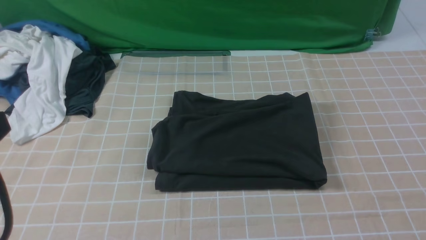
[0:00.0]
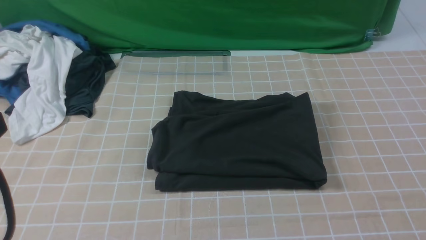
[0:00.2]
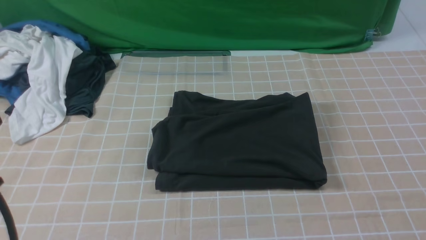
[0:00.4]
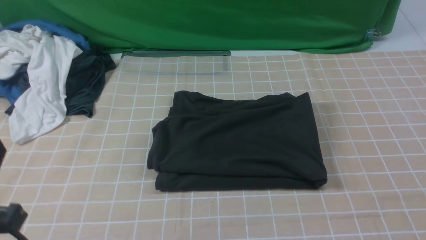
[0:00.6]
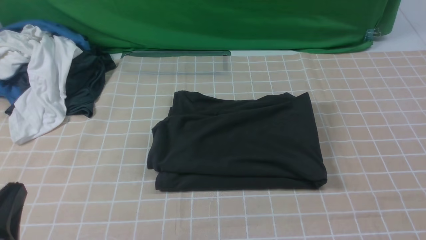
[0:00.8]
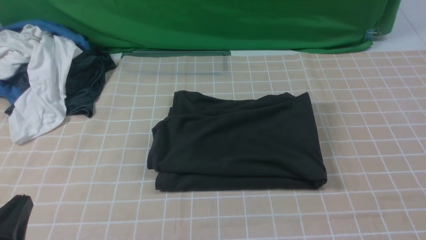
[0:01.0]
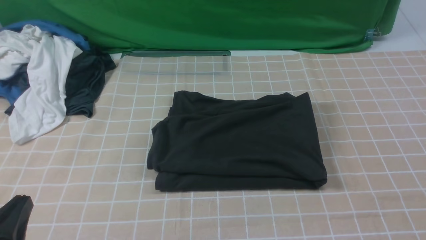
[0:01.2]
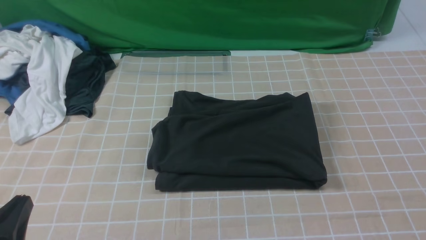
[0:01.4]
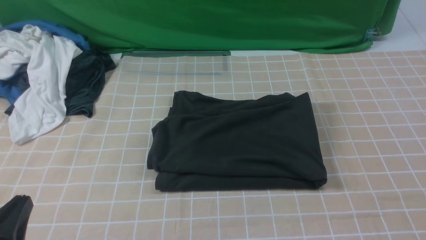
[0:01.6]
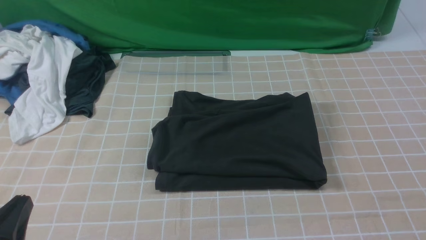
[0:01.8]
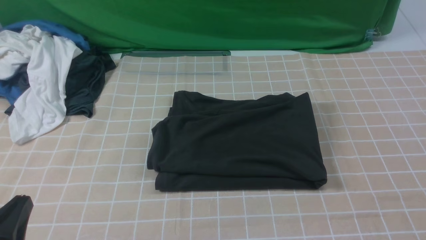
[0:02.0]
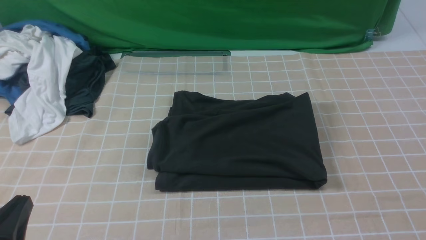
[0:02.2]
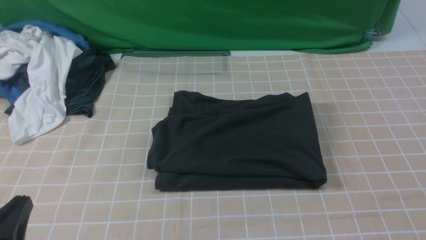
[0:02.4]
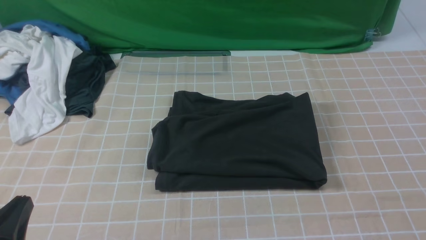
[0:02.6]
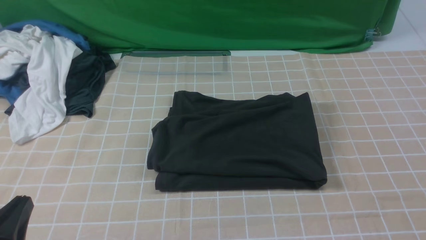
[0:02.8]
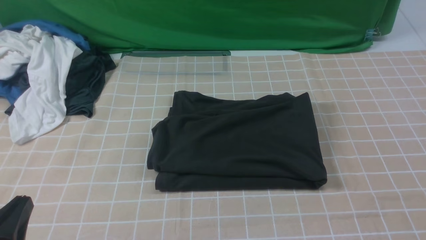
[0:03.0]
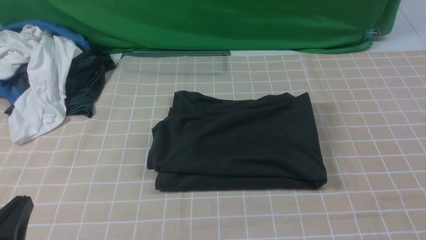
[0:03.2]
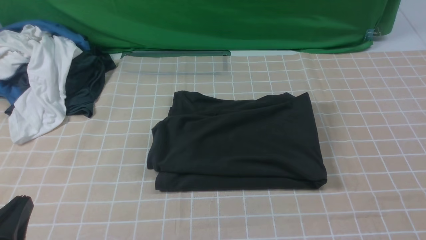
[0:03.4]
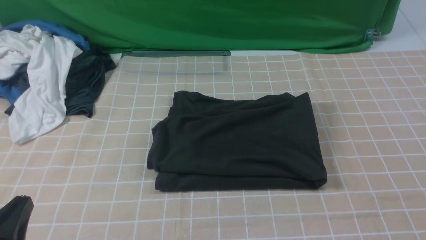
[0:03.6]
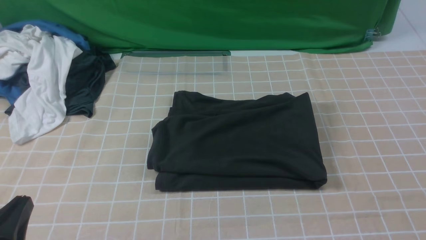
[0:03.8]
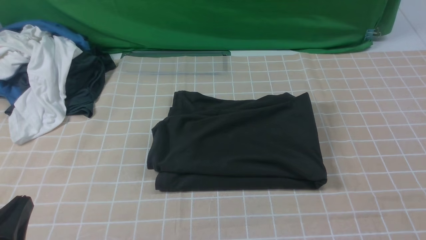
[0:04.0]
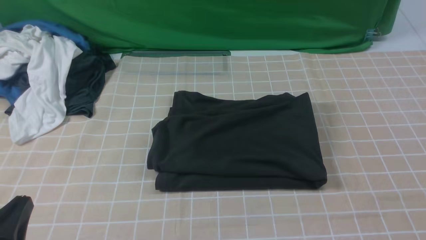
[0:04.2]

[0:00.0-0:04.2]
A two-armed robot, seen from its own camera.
0:00.0 to 0:01.4: The left gripper moves downward, roughly 15 cm.
0:02.8 to 0:04.2: Neither gripper changes place.

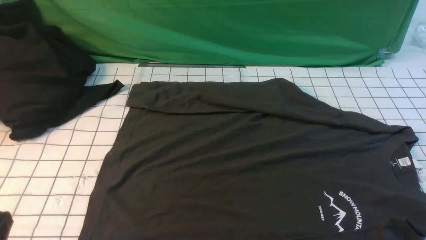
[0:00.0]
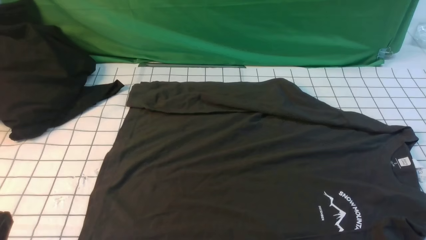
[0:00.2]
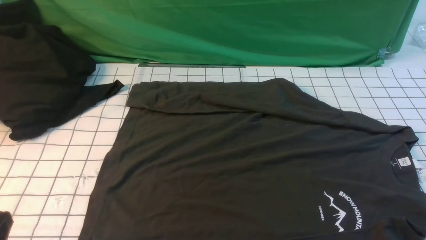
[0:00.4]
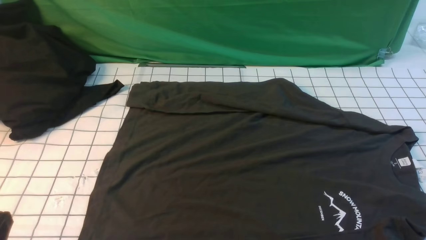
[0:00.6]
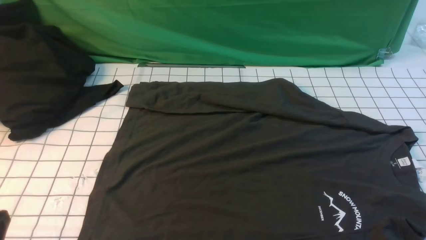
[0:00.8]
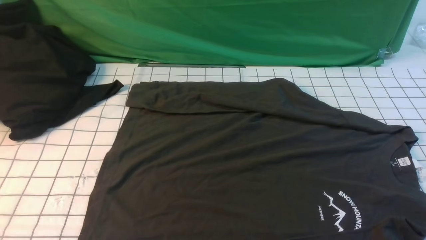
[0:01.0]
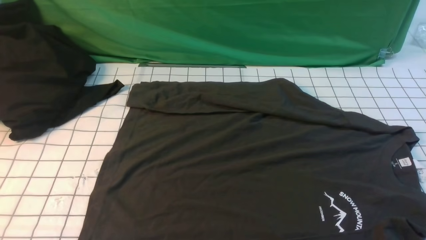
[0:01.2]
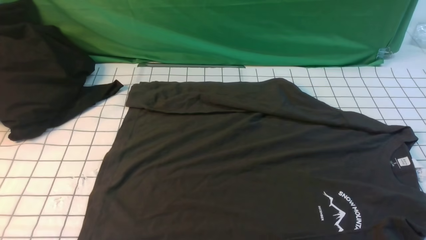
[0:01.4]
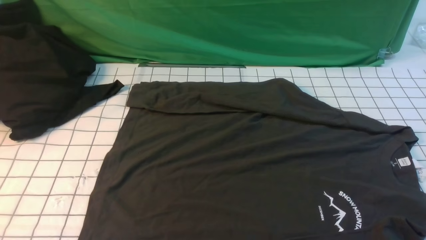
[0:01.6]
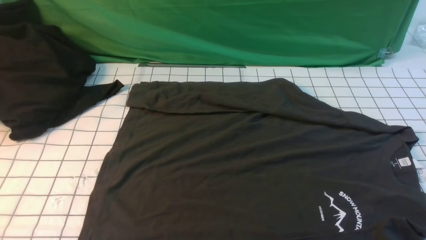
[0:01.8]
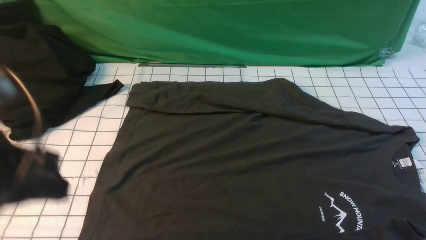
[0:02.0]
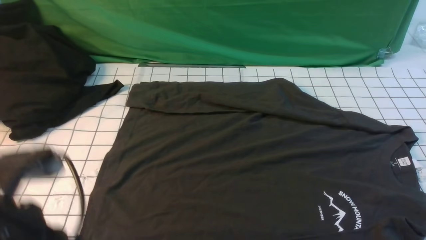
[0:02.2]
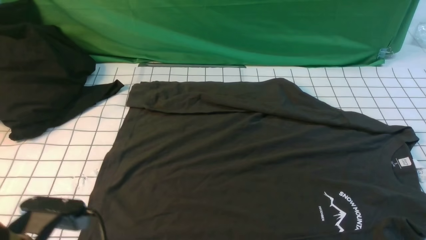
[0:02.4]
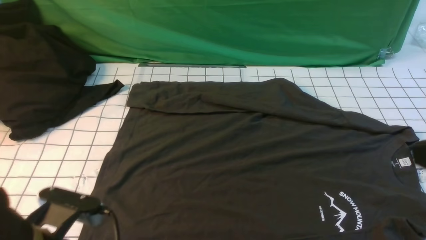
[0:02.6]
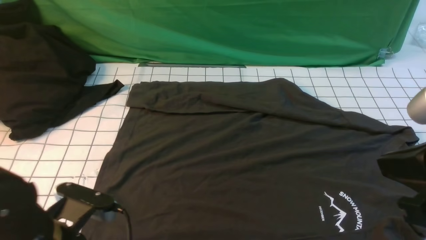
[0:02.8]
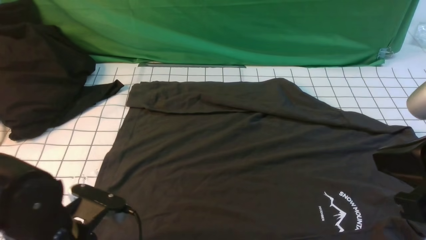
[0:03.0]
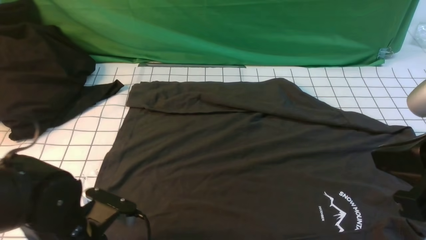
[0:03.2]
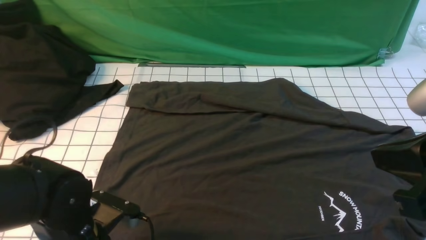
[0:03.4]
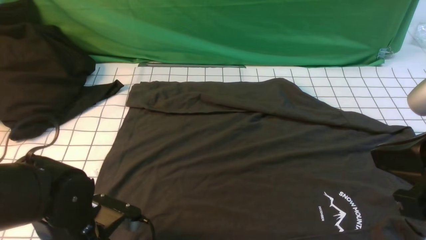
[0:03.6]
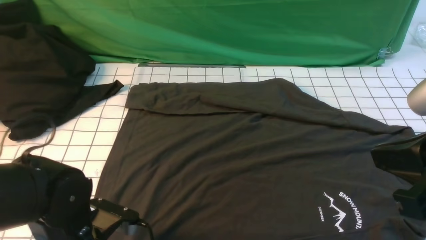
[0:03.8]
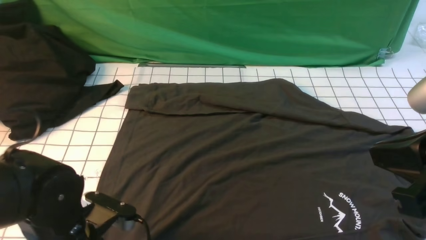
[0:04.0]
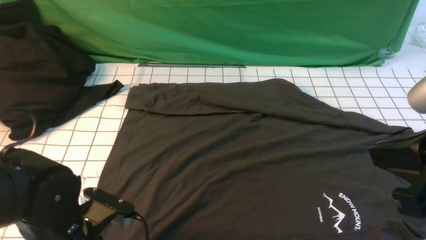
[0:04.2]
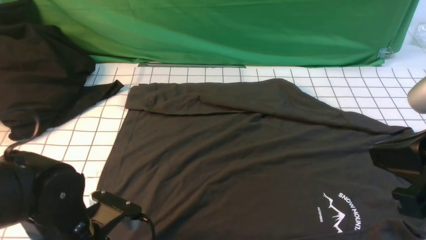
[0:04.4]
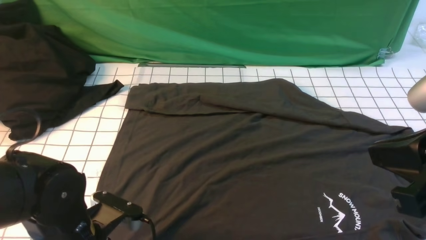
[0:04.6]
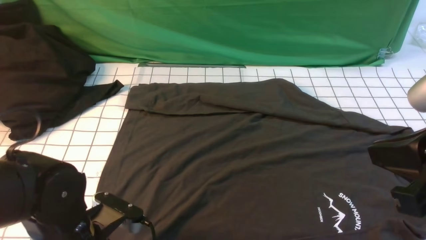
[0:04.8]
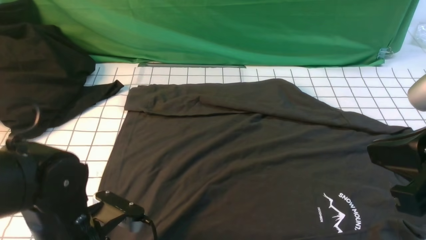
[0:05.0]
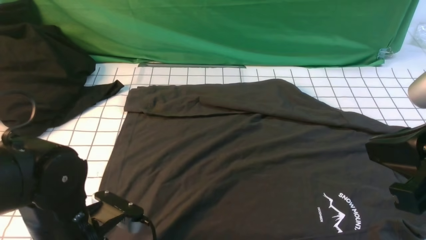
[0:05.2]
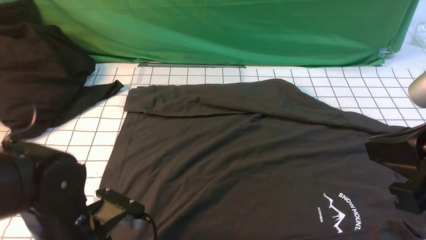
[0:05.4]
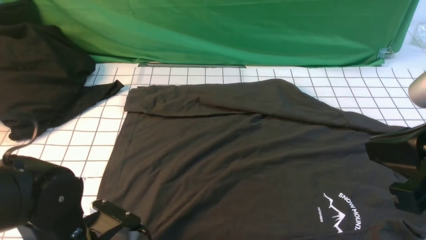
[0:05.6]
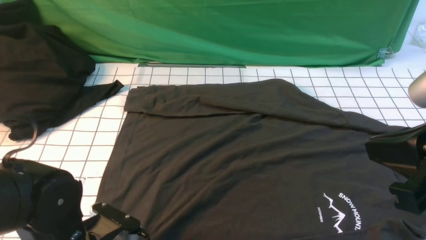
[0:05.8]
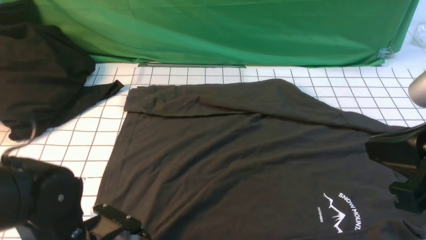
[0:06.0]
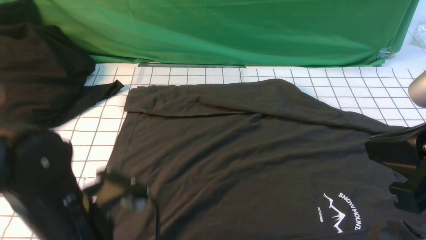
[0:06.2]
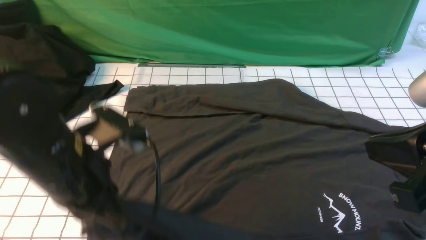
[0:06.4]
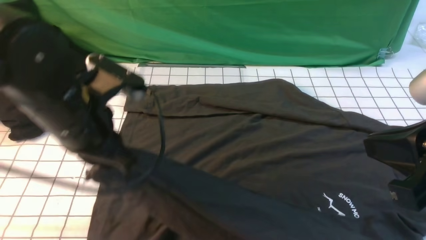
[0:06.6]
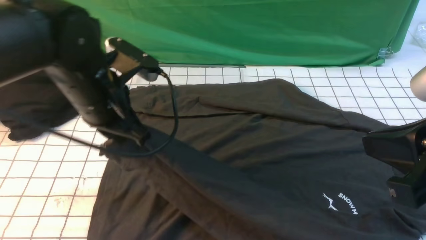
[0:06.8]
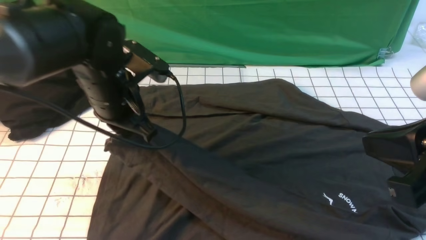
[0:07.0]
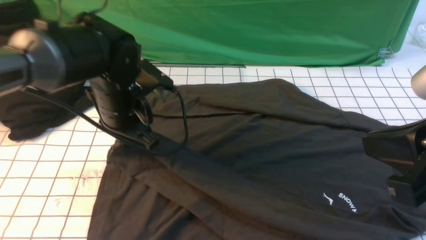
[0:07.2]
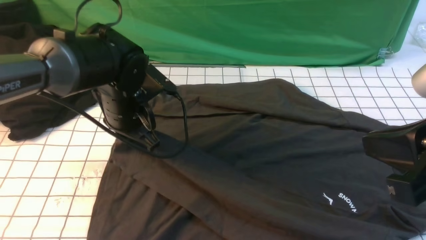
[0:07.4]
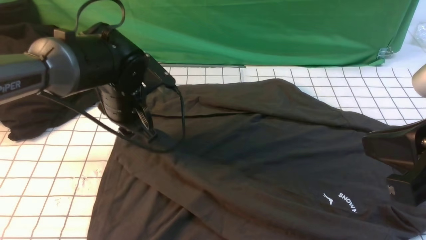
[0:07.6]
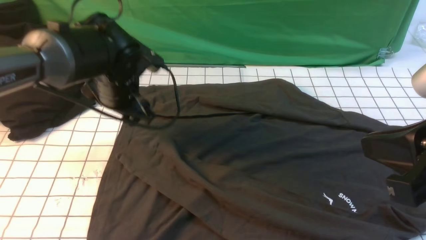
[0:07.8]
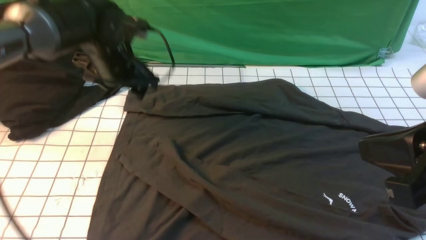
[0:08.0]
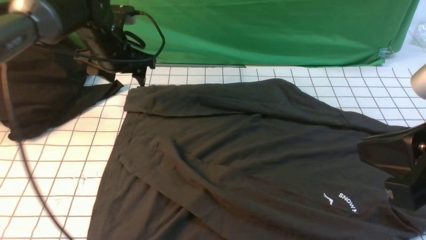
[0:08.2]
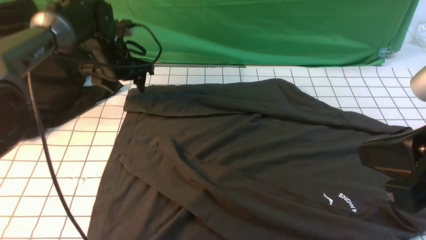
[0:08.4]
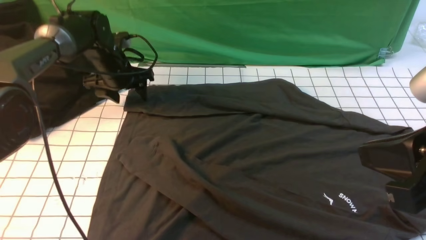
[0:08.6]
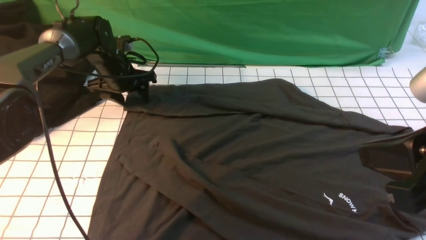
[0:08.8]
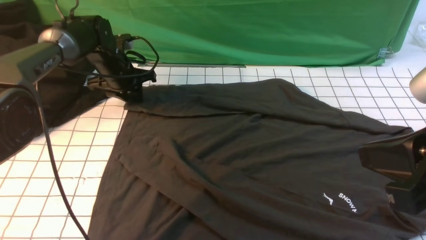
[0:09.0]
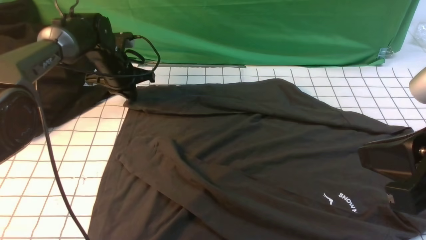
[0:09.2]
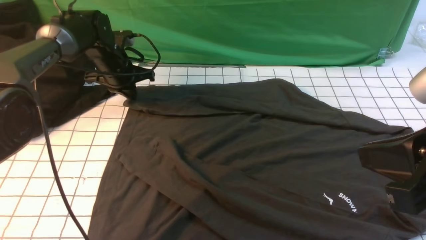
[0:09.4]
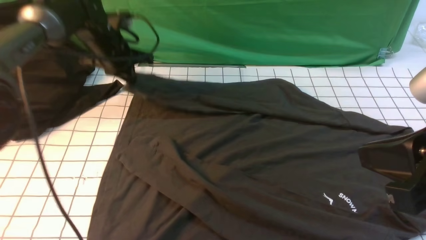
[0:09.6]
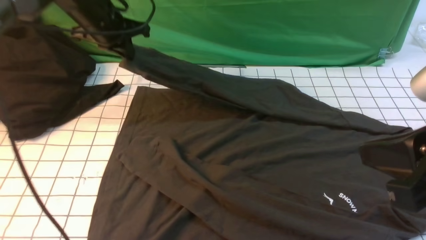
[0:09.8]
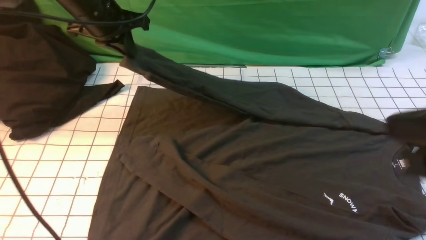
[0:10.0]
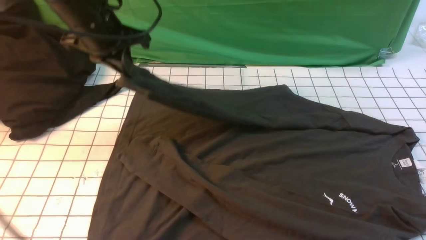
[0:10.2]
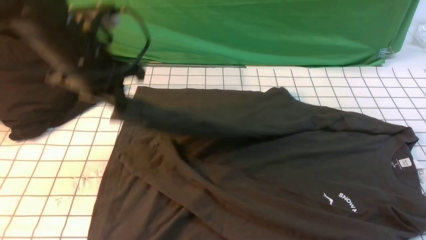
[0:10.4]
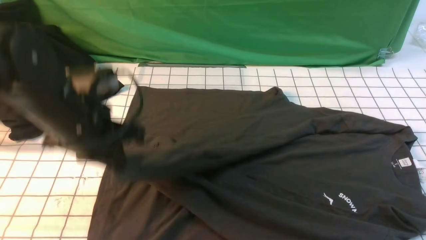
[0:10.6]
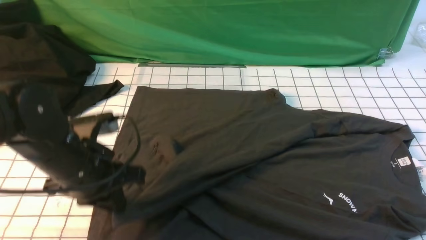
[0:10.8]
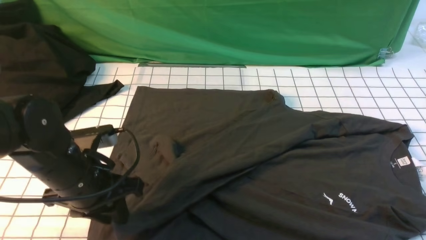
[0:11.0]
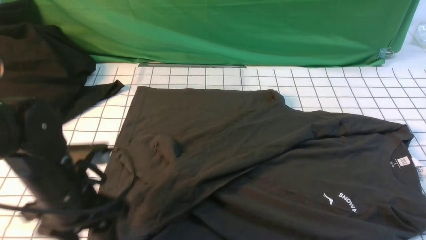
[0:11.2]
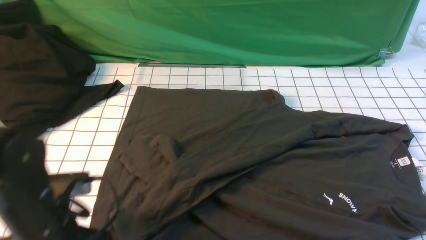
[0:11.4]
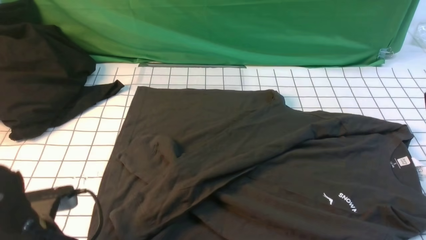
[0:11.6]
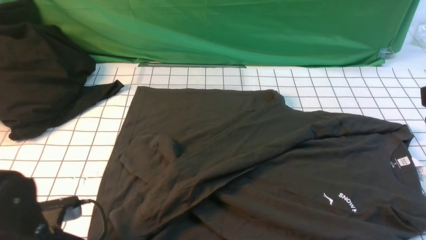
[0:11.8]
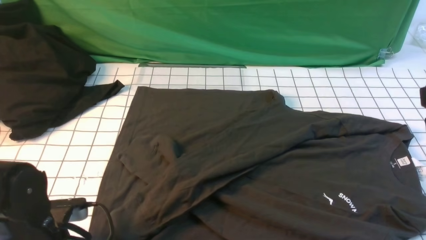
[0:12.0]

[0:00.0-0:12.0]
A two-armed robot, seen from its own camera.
Step, 0:00.0 to 0:05.6: use the left arm to clamp the cuff closest to it.
Step, 0:06.0 to 0:07.6: use the left arm to drag and place the cuff at the centered position on the left edge of the fabric.
Step, 0:07.8 to 0:09.0: use the left arm to clamp the cuff farthest from it.
Step, 0:09.2 to 0:11.0: use the left arm to drag and drop the cuff onto the cuff closest to the left arm.
0:01.6 to 0:03.0: The right gripper is displaced upward, to the left and forward by roughly 20 cm, and closes up; the left gripper heads downward, forward and to the right, covering approximately 25 cm, and opens up.
0:03.0 to 0:04.4: The left gripper closes, then opens again.
0:04.4 to 0:06.0: The left gripper closes up.
0:06.0 to 0:07.6: The left gripper is displaced forward by about 20 cm, and opens its fingers.
0:07.6 to 0:09.0: The left gripper is displaced forward, to the left and downward by roughly 15 cm.
0:09.0 to 0:10.4: The left gripper moves backward and upward, roughly 20 cm, and closes up; the right gripper moves some 5 cm.
0:10.4 to 0:12.0: The left gripper travels backward and downward by some 20 cm, and opens its fingers.
